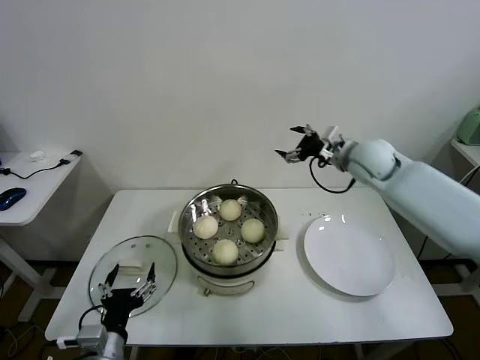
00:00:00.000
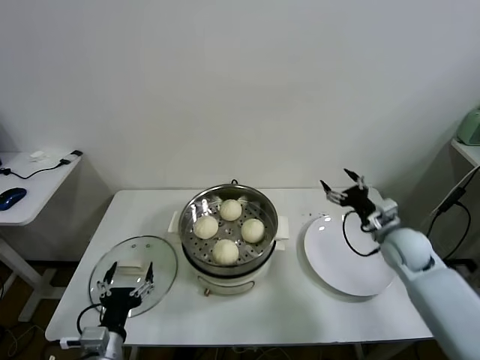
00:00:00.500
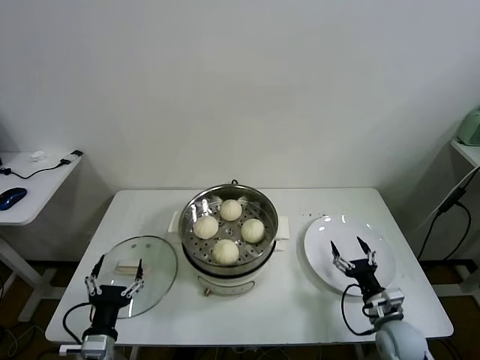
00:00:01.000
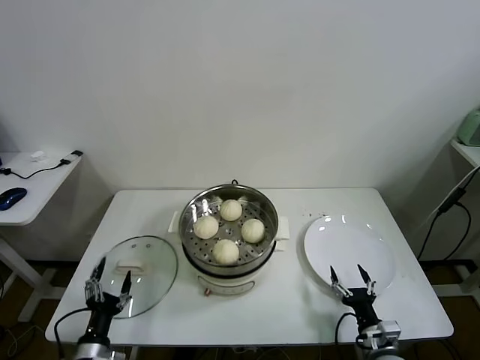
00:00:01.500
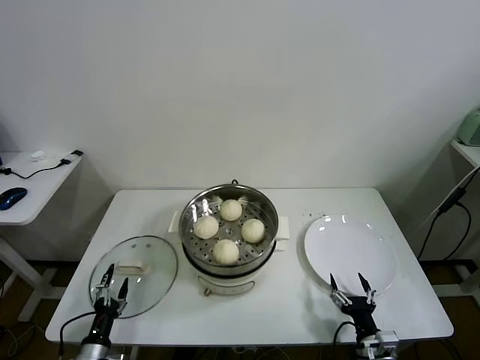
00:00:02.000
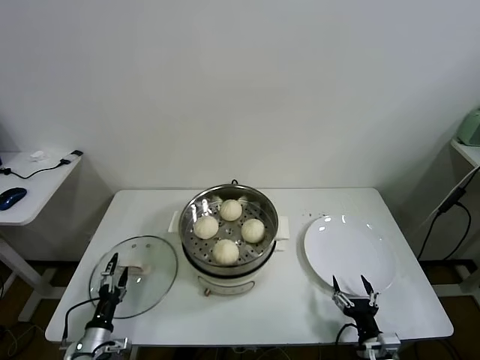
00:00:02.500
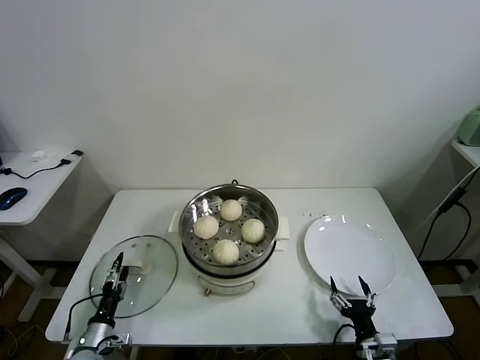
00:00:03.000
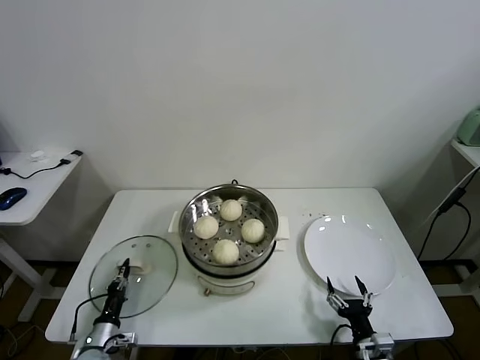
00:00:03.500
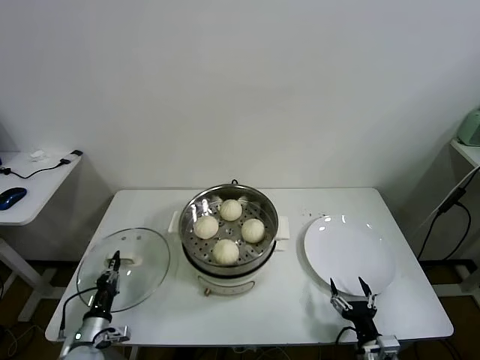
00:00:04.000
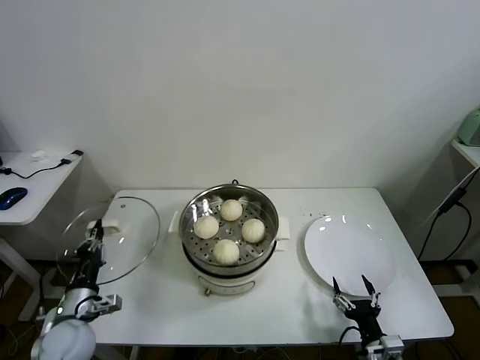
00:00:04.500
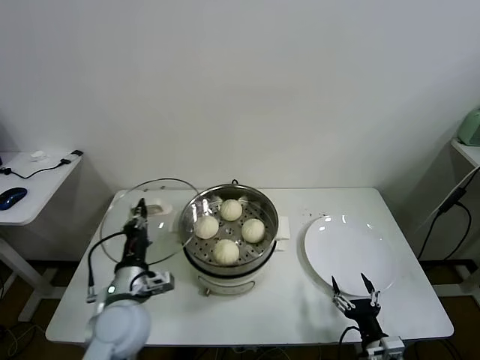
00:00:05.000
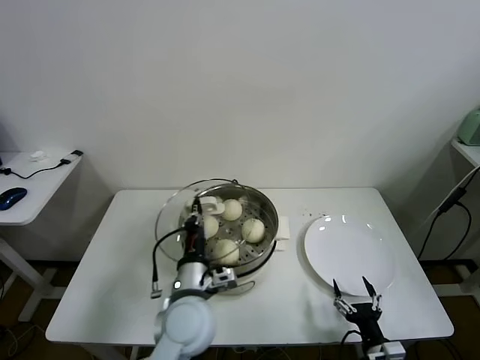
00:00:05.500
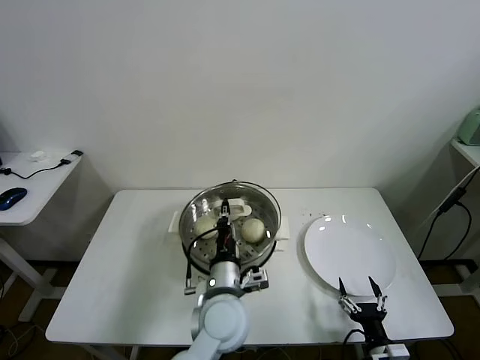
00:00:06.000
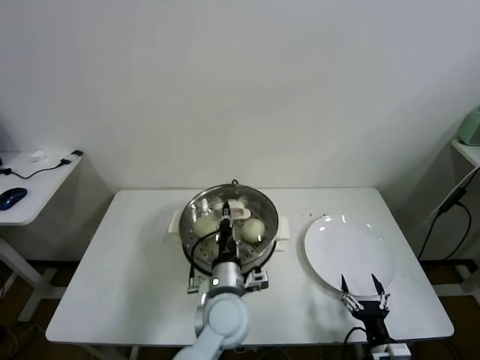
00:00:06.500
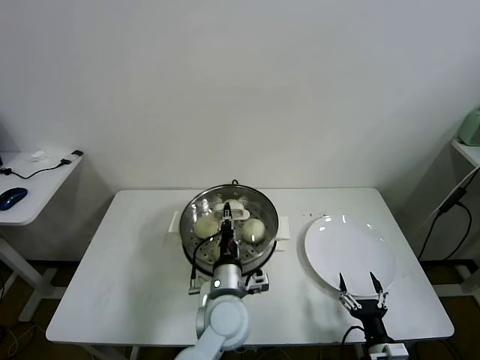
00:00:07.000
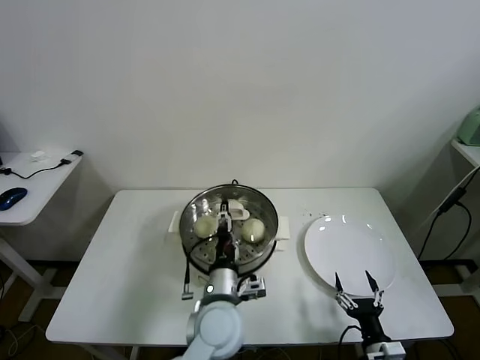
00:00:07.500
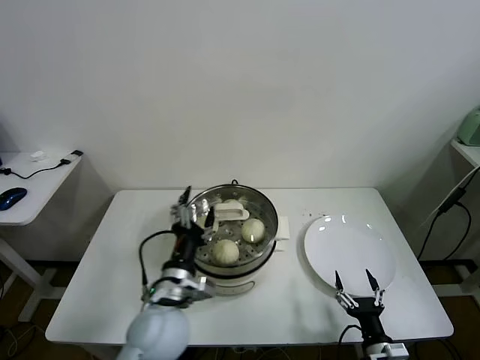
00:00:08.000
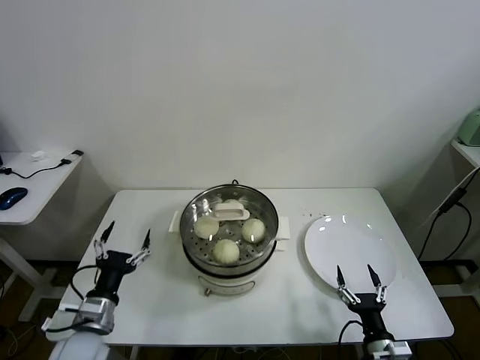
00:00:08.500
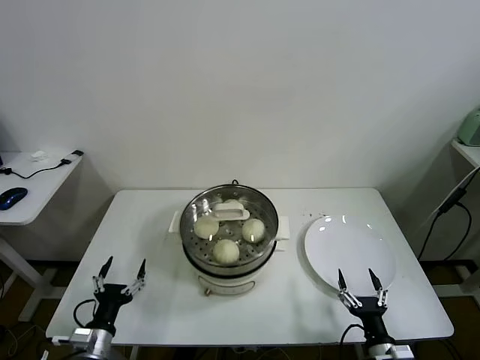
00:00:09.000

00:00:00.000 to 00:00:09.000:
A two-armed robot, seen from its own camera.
Task of the whole recording: take steamed baozi put them in steamer.
Step, 00:00:00.000 to 00:00:03.500: Grasp the baozi in the plate with right gripper.
Step, 00:00:04.000 to 00:00:07.000: Place the pot lid on the steamer with left gripper.
00:00:00.000 to 00:00:02.000: The right gripper travels backward and downward by roughly 50 cm; the left gripper shifts roughly 20 cm downward and to the left.
00:00:02.000 to 00:00:04.500: The left gripper travels upward and forward by roughly 15 cm, and closes up.
00:00:04.500 to 00:00:07.000: The left gripper is displaced to the right by about 30 cm.
00:00:07.000 to 00:00:09.000: The left gripper goes some 30 cm to the left, and opens.
